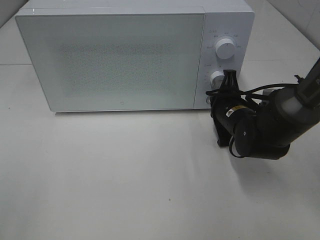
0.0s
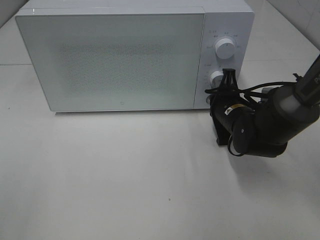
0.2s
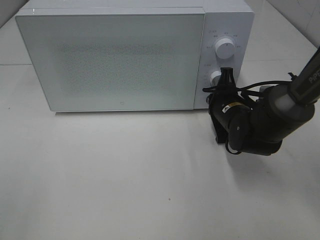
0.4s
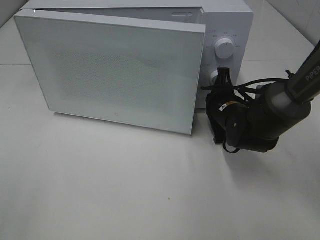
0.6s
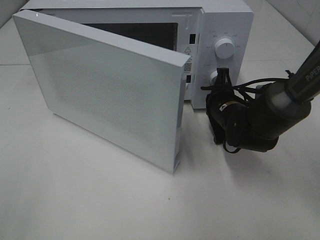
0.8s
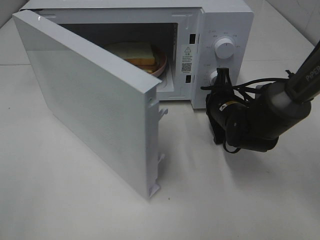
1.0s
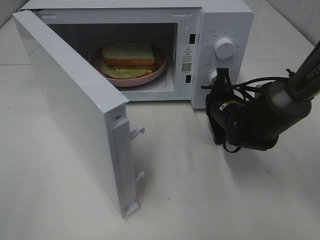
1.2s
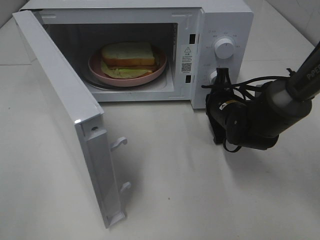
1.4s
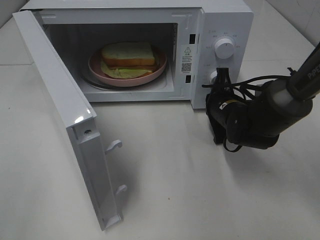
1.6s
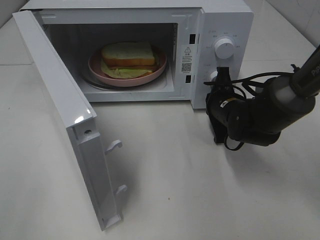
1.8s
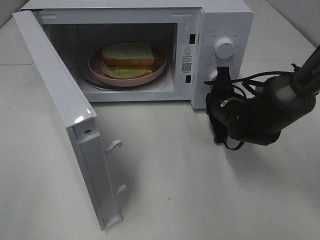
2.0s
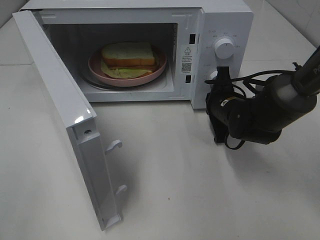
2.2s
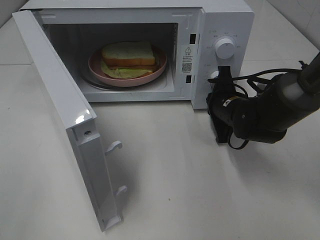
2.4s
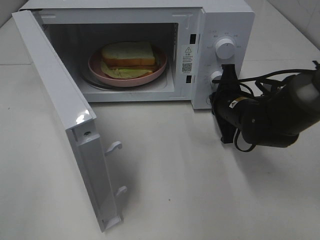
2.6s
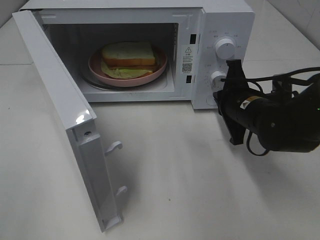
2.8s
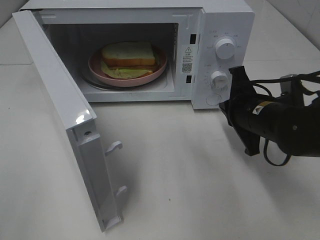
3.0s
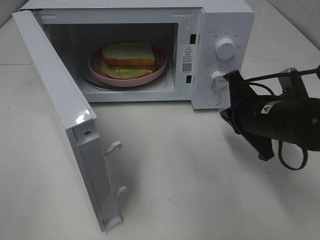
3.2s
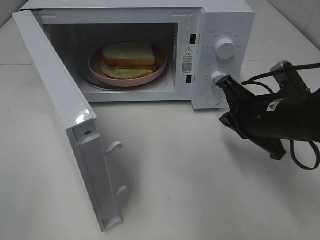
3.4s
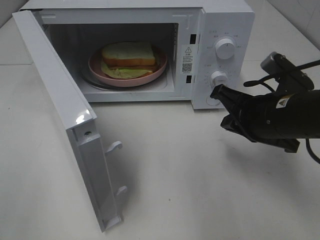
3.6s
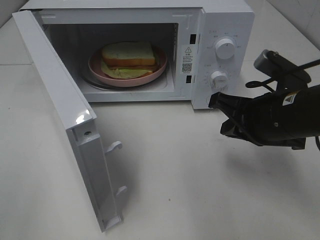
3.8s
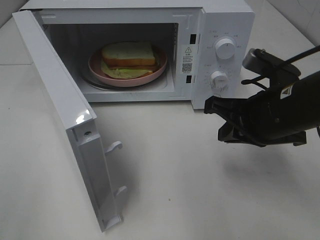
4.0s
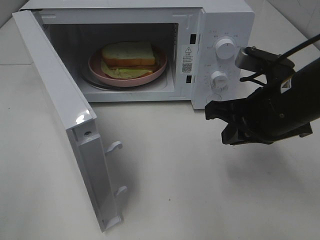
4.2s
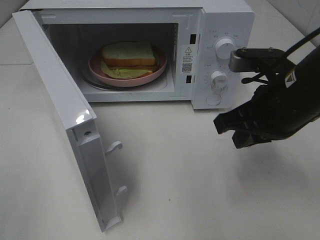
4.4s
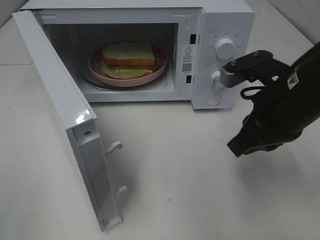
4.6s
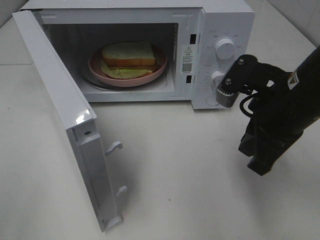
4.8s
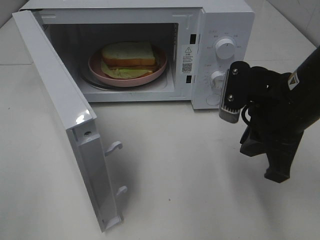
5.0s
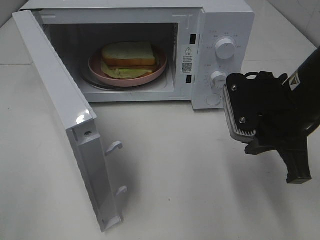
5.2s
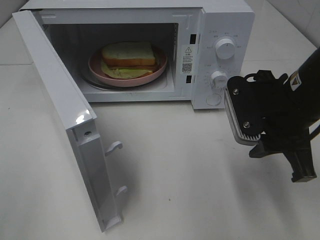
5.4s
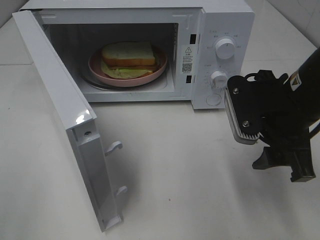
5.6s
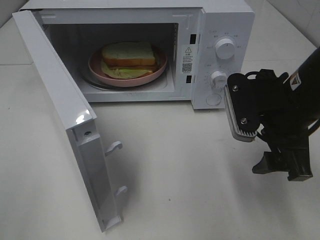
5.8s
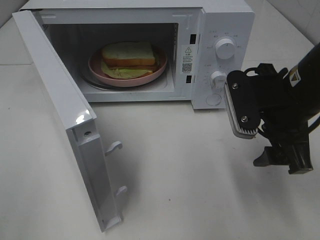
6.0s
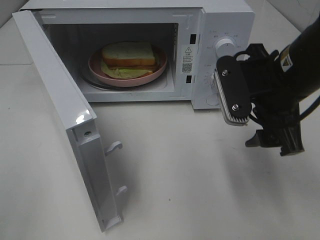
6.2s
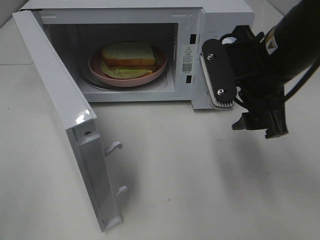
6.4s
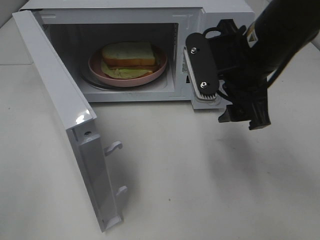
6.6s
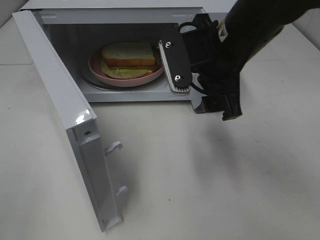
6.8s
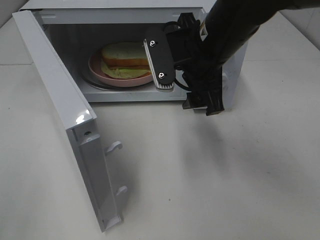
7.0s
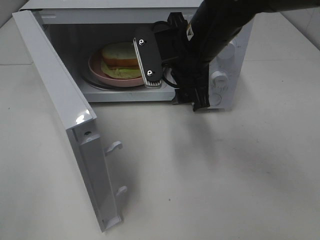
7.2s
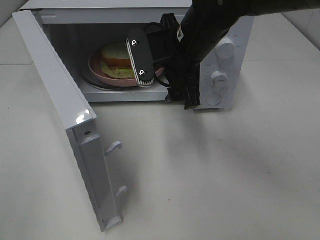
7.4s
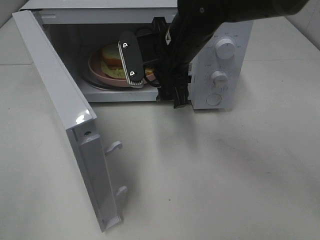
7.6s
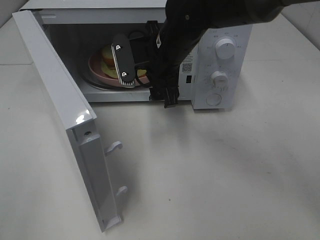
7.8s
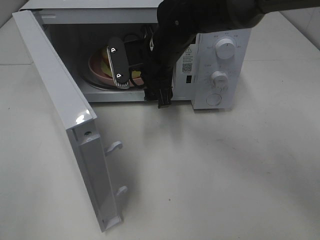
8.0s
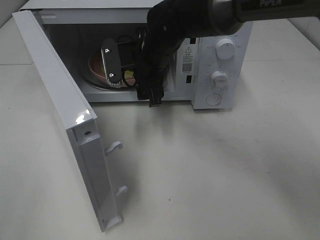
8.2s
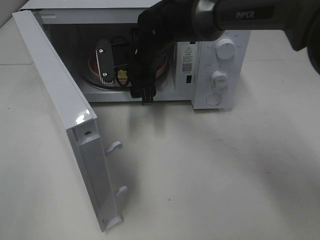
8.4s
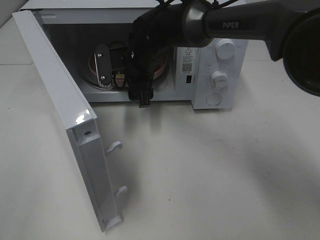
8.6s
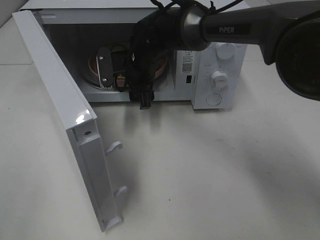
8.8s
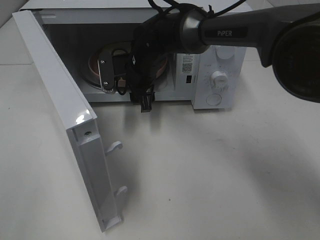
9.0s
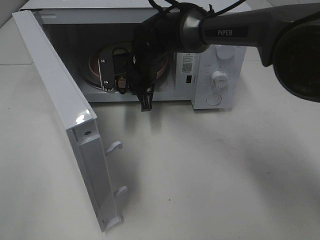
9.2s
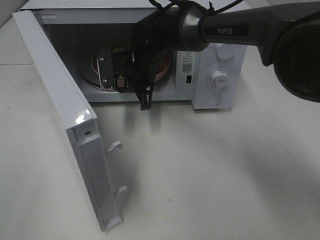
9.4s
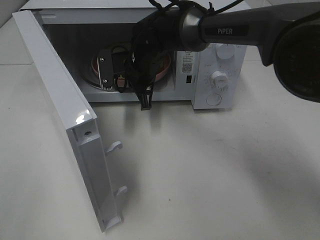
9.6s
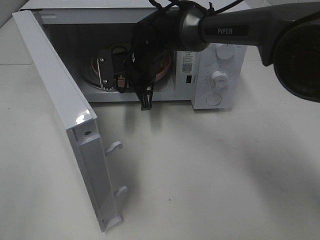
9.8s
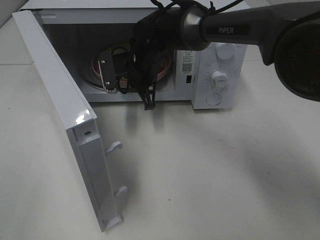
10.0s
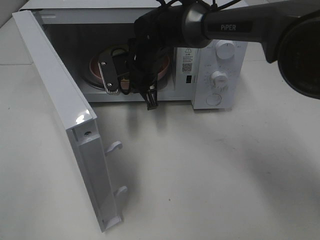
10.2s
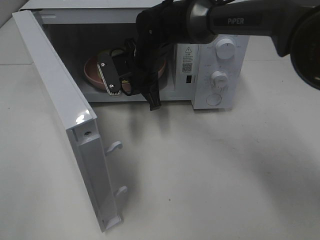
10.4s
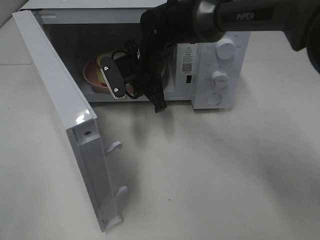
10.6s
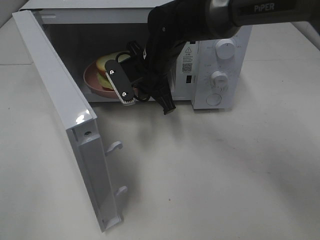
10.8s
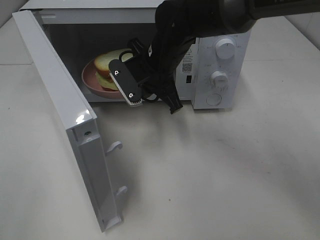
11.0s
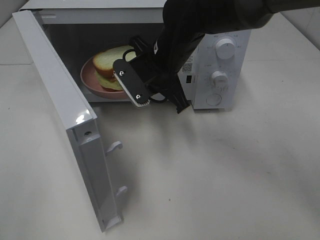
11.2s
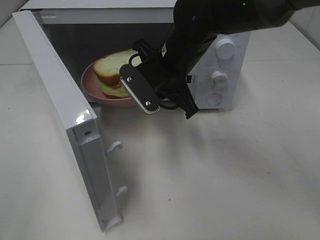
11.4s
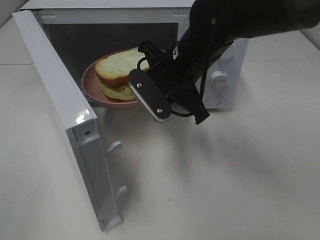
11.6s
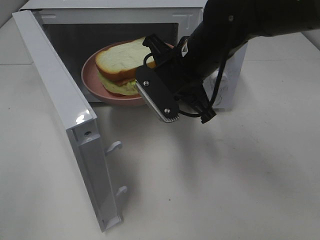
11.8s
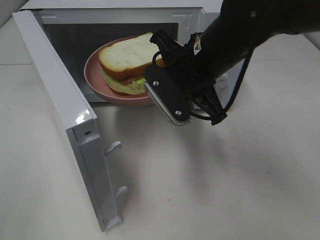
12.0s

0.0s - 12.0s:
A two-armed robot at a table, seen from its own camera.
Task of the whole recording: Heat Sandwich.
Step, 0.0s - 3.0s: Right hand: press the switch.
Step, 3.2s - 9.8s: Right hand: grab the plate with the sandwich.
1.6s - 3.0s: The right gripper goes about 10 cm backward and upward.
3.0s - 4.4s: The right gripper moves upward, some 10 cm.
4.4s - 6.0s: The right gripper opens.
6.0s - 7.6s: The right gripper heads to the left and forward, covering roughly 20 cm.
7.6s - 9.0s: The right gripper heads forward, downward and to the left, covering roughly 15 cm.
9.0s - 10.4s: The right gripper closes up.
10.4s - 12.0s: The right gripper heads backward, to the right and upward, covering roughly 15 cm.

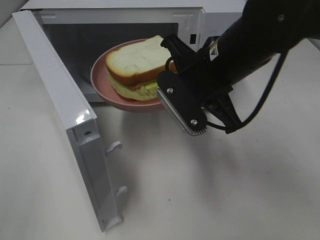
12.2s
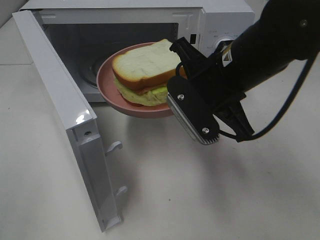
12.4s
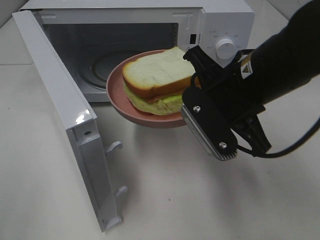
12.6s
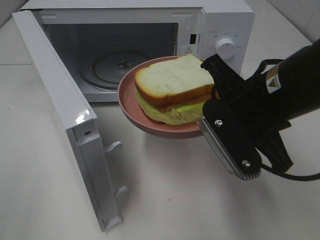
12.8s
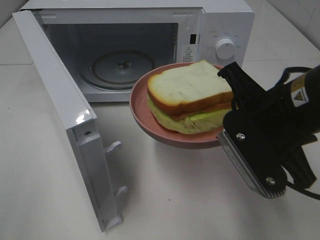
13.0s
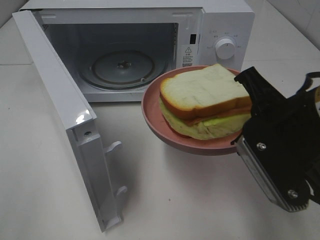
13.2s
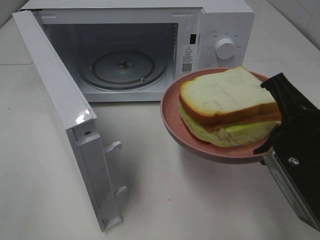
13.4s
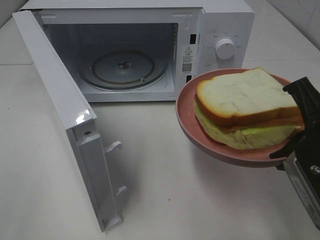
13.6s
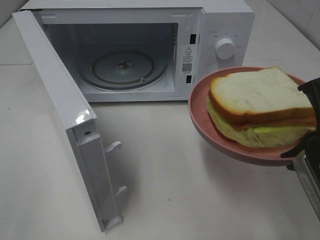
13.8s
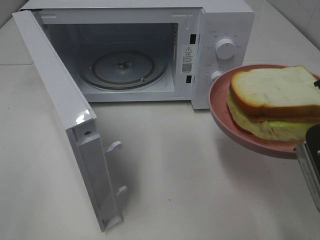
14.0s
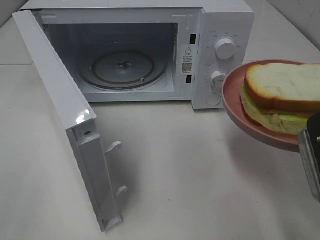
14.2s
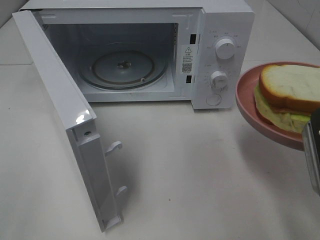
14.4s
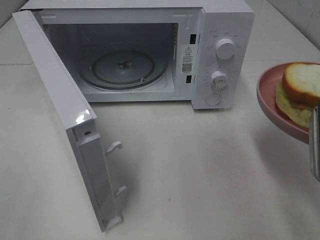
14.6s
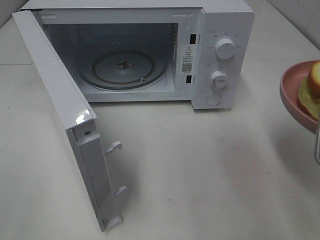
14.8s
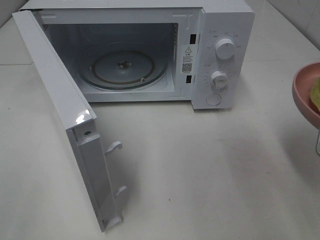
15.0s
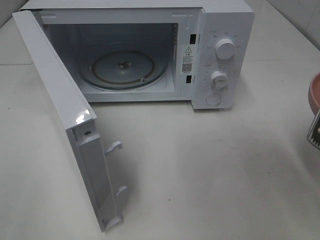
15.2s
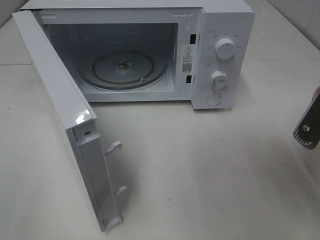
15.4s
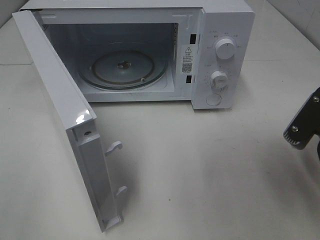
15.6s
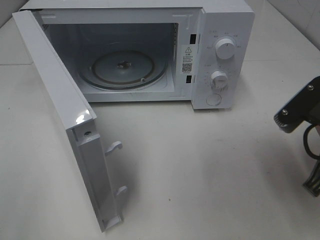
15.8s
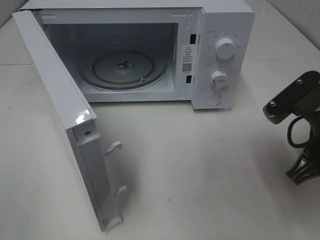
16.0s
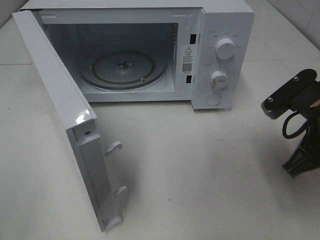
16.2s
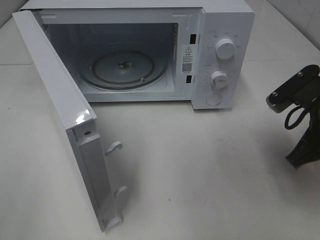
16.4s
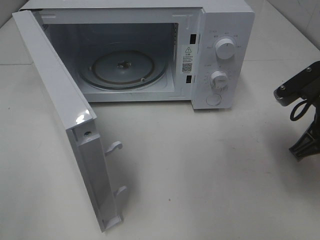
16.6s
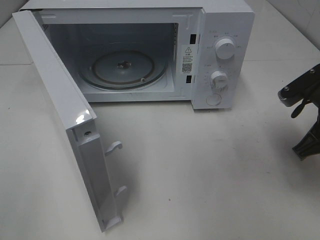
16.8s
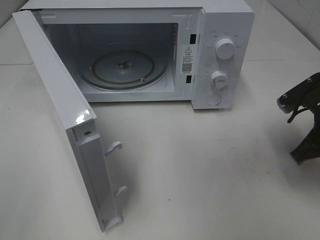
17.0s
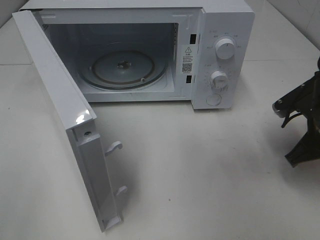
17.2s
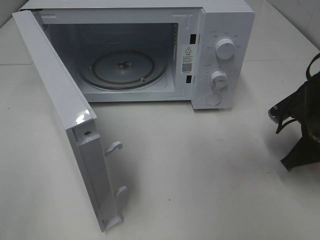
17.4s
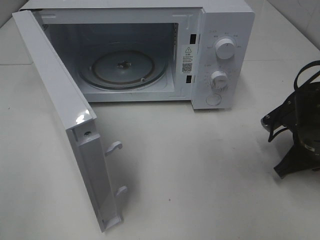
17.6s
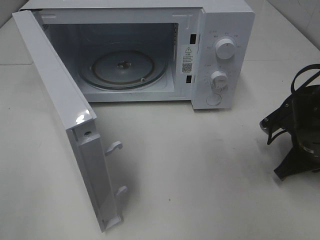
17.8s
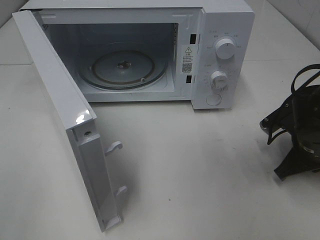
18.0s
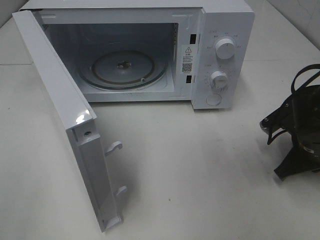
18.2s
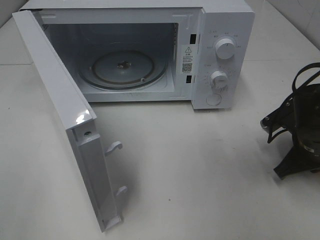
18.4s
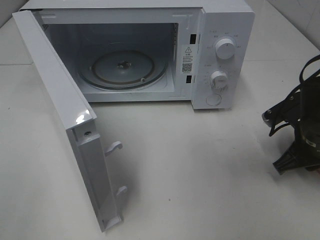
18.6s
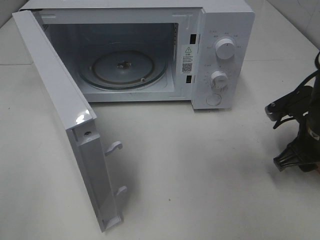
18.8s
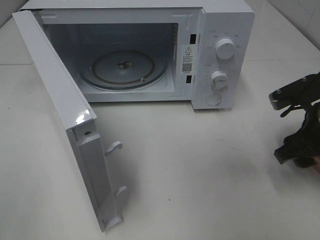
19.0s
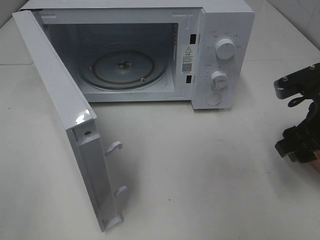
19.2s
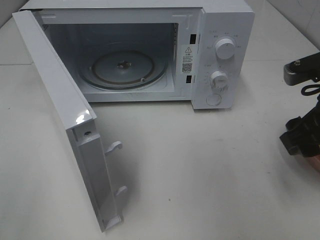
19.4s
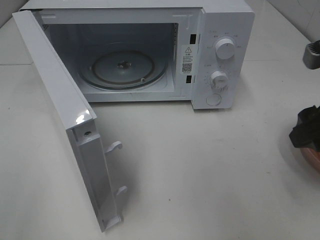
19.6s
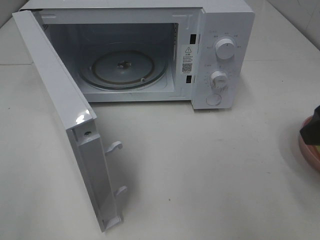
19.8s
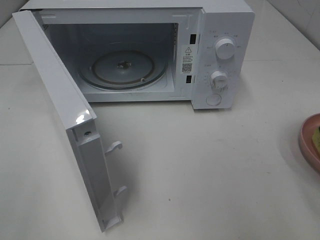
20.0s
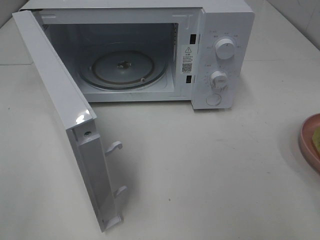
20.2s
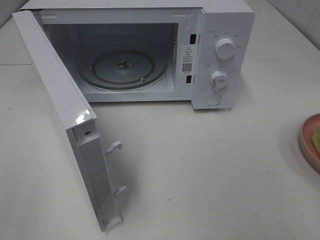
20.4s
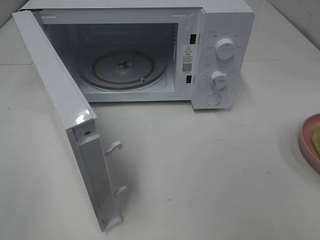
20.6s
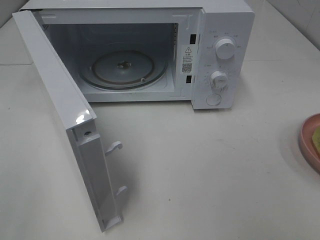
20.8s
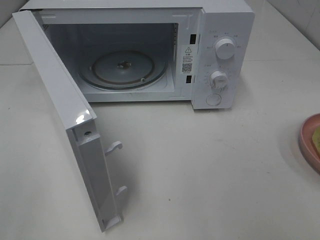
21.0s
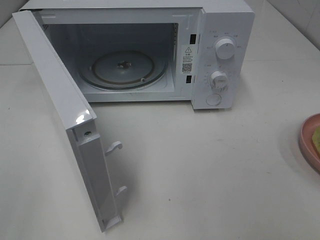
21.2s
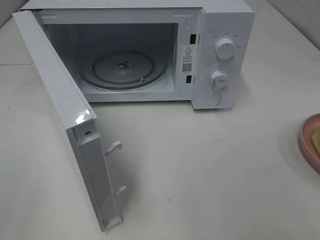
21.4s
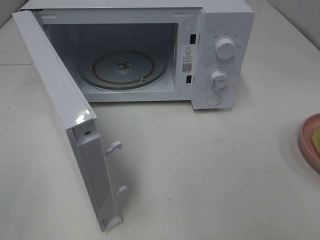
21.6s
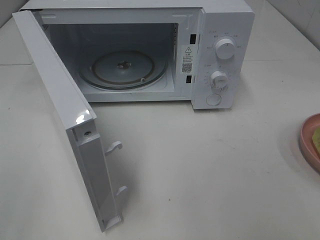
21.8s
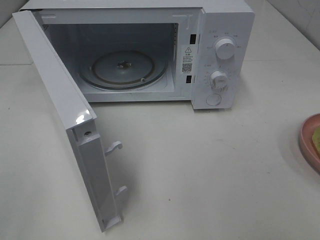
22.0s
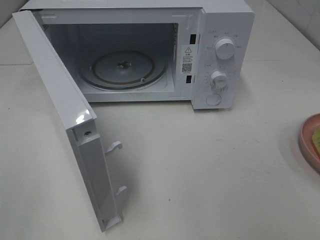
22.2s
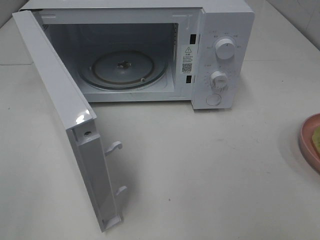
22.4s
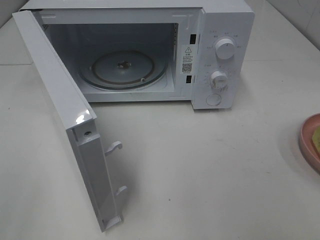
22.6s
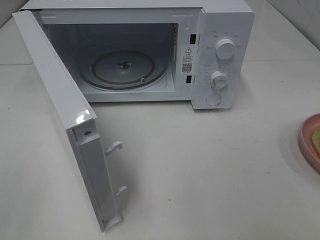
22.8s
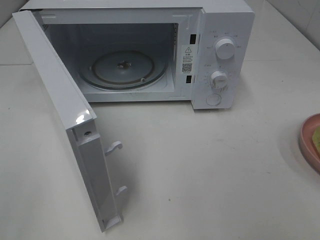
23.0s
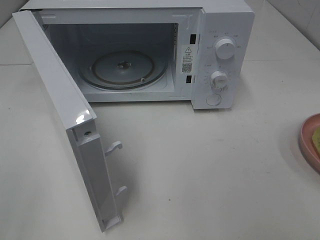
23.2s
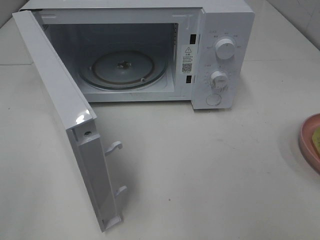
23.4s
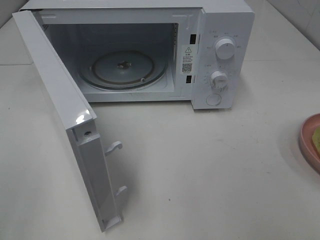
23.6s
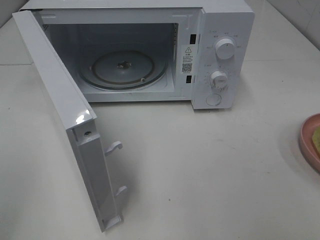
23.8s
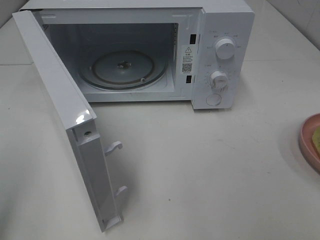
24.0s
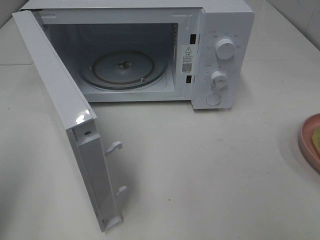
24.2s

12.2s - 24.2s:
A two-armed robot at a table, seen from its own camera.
Task of the whole recording: Heat Sandwich.
Step, 12.2s - 19.4s: Right hand: place the plate on the table.
12.2s - 13.8s: The right gripper shifts some 20 cm backward and to the right.
15.2s - 16.6s: The right gripper goes roughly 10 cm forward and downward.
16.6s - 18.2s: The right gripper is displaced downward by some 10 cm.
18.2s - 19.8s: The right gripper shifts about 20 cm upward and backward, and opens its fingers.
19.8s - 21.2s: The right gripper goes about 15 cm backward.
21.2s - 22.6s: The two grippers keep their place.
22.6s - 24.2s: The left gripper is displaced forward by some 10 cm, and closes.
